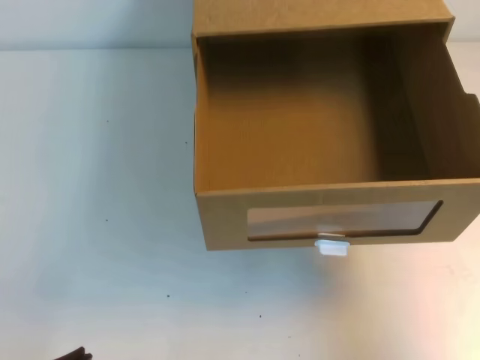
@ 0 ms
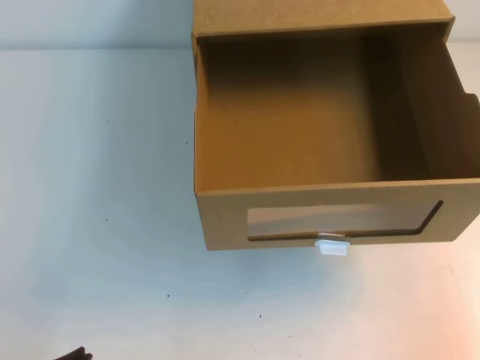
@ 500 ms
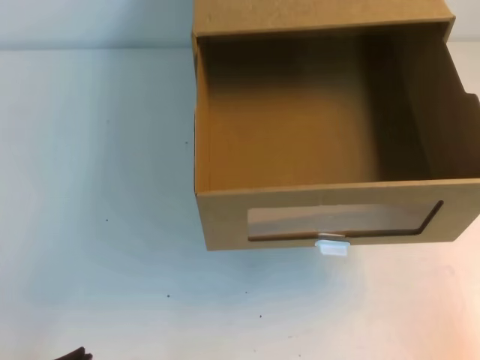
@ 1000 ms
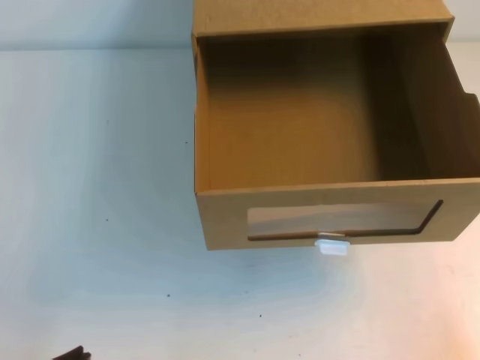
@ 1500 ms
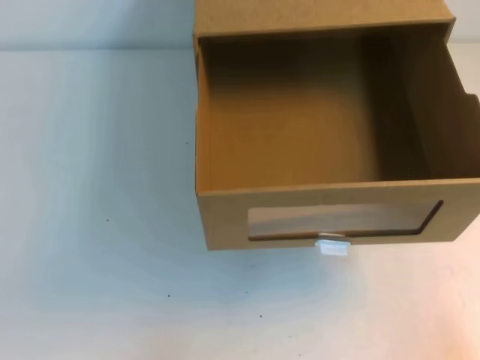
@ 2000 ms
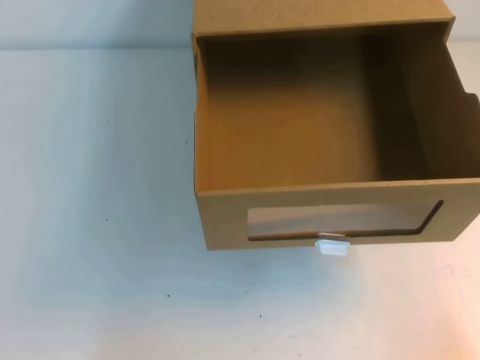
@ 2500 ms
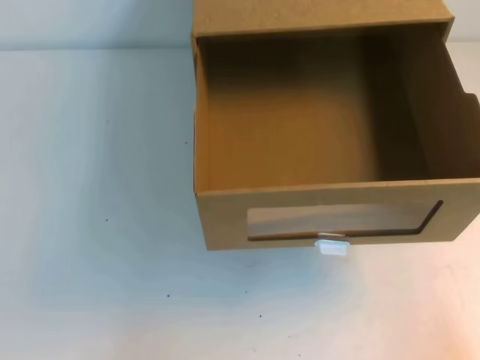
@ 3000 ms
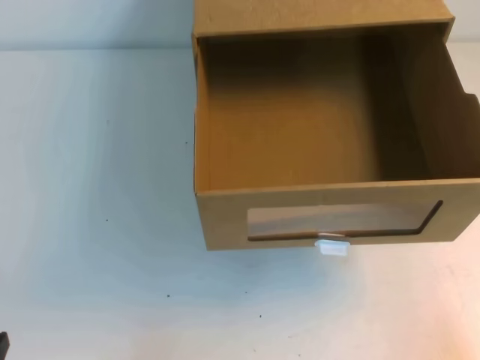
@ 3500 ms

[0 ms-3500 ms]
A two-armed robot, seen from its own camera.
Task of the whole recording: open the shoebox on the table.
Step, 0 ms to 3500 ms: Open the shoe box.
0 ms to 2000 ms: The right gripper is displaced downward and backward by some 20 cm.

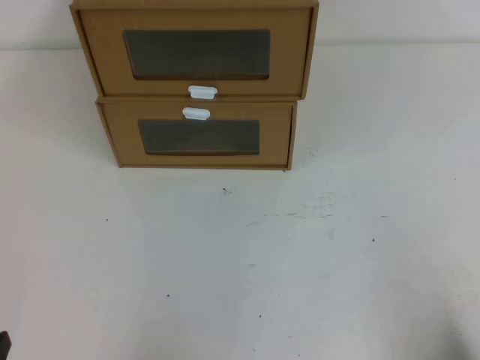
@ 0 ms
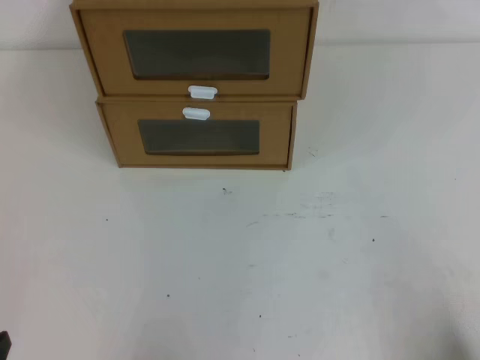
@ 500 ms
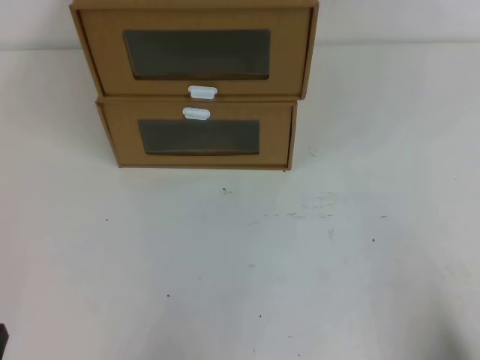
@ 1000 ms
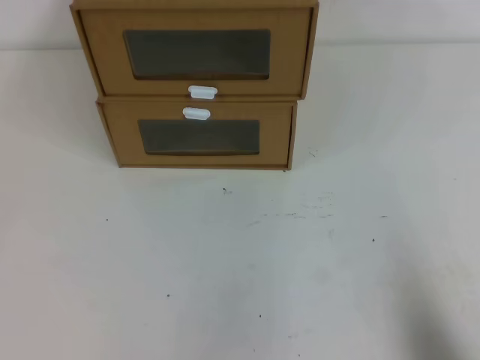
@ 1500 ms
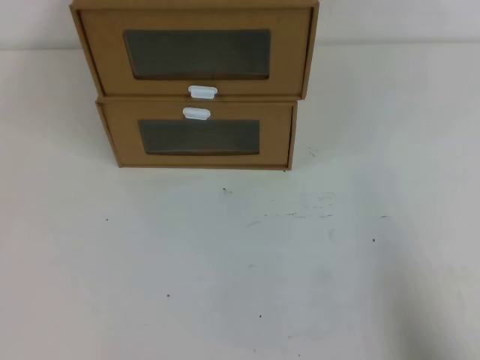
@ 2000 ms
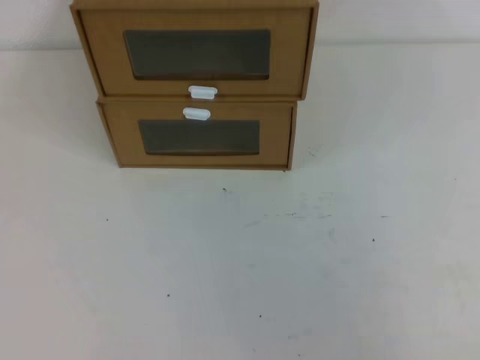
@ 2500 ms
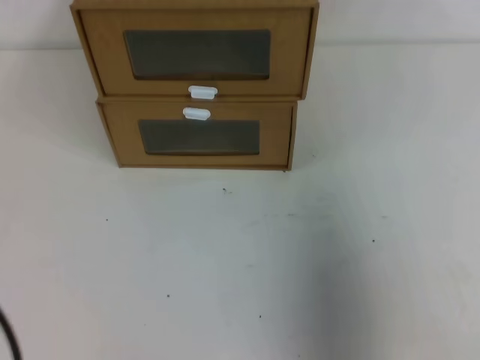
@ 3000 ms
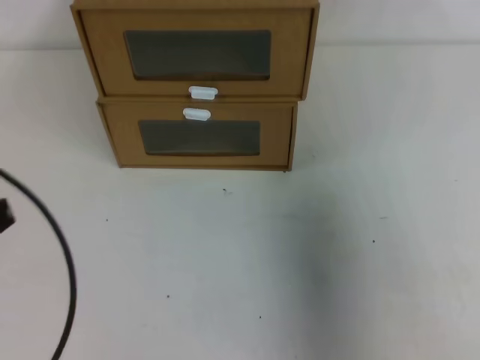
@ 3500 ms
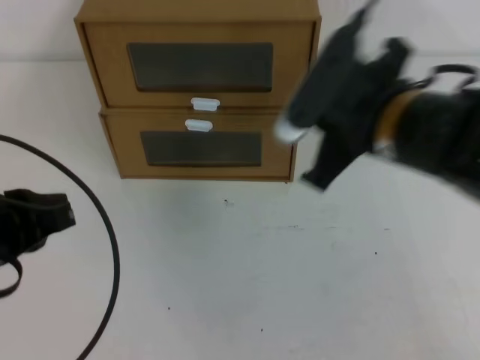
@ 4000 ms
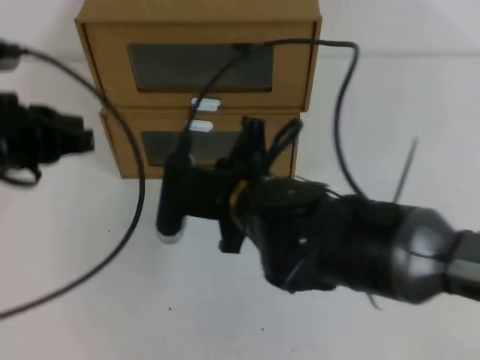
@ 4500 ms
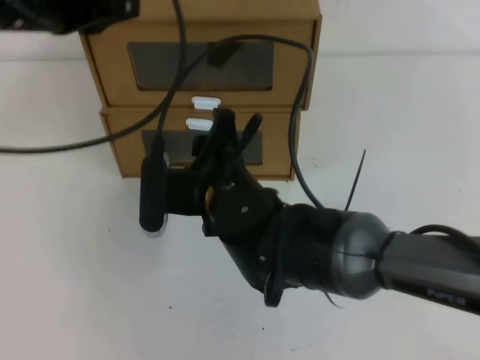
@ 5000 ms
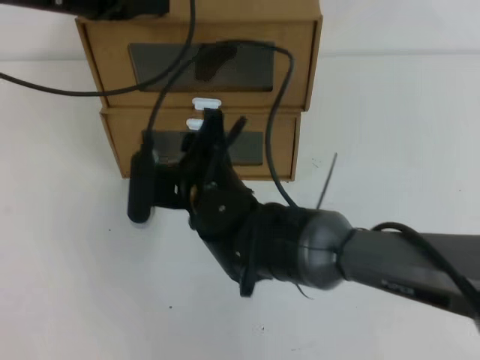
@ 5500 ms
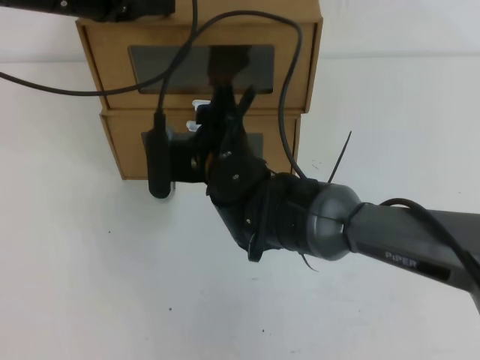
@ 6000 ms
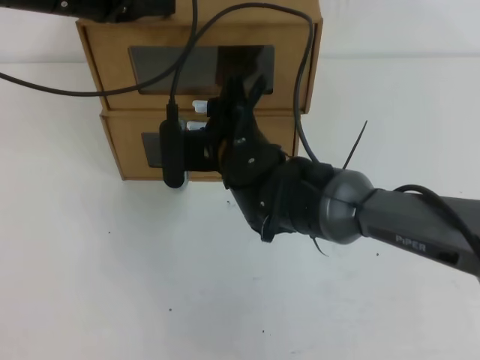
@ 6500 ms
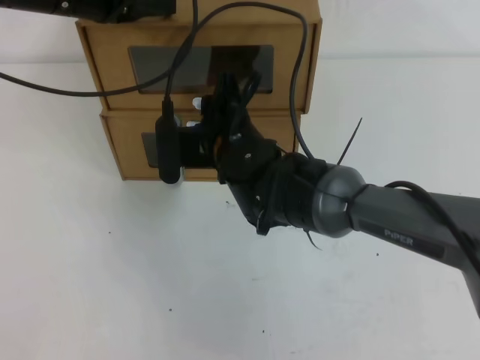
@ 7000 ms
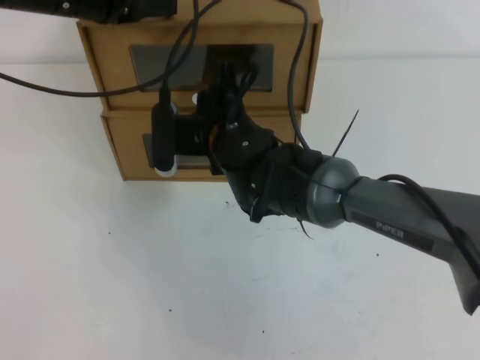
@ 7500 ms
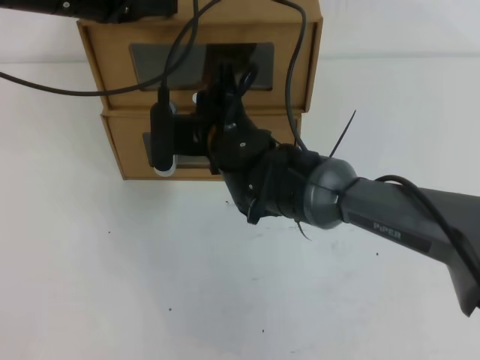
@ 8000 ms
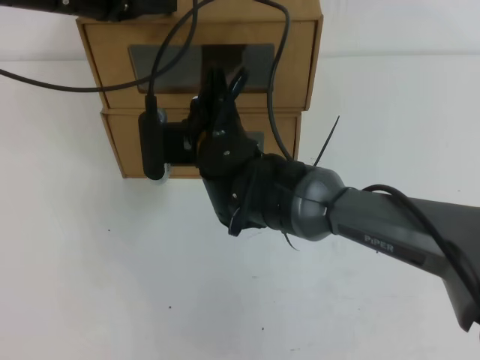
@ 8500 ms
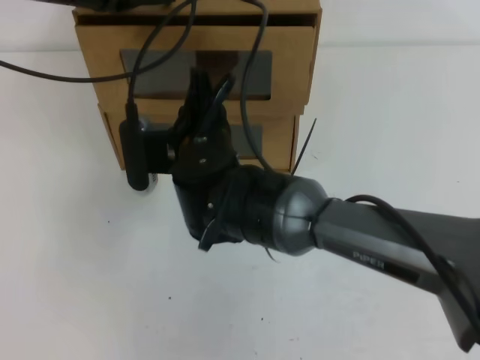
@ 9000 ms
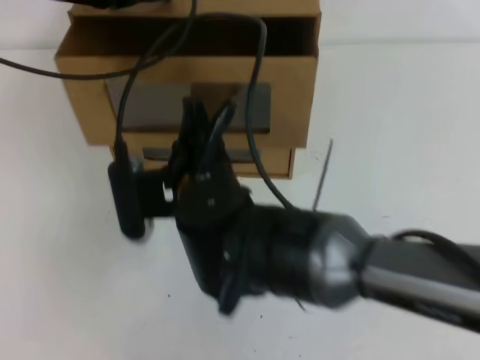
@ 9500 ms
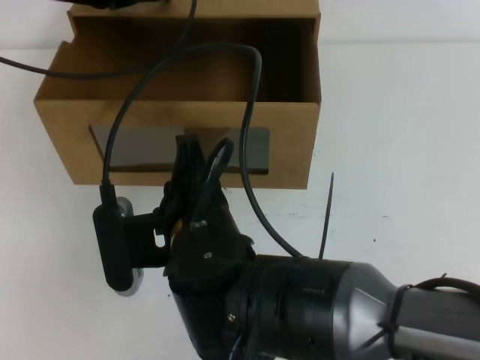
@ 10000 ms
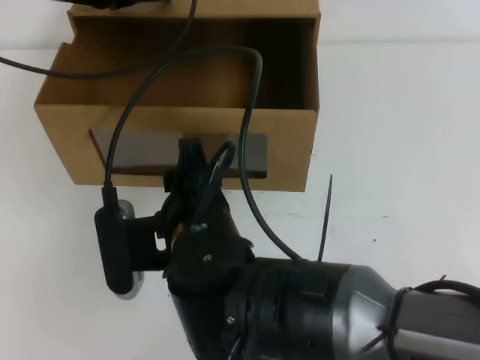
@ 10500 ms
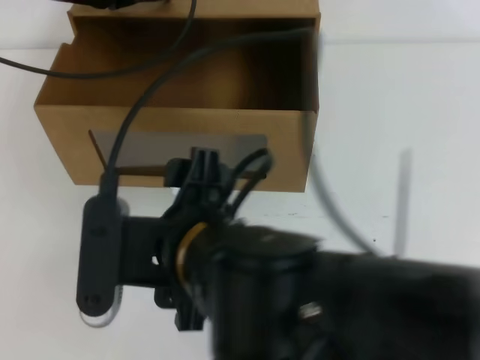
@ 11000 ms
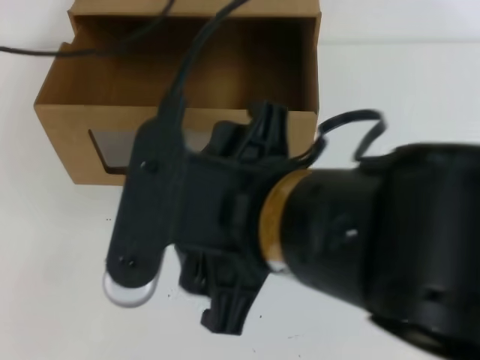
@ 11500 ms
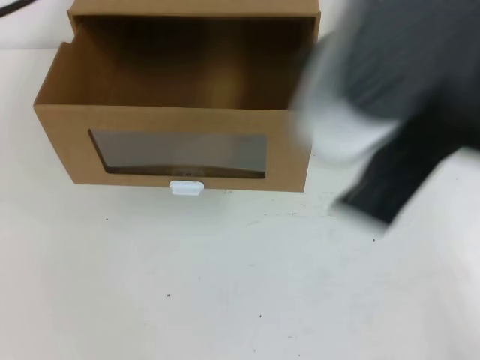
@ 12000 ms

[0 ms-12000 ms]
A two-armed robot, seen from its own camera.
Task of the whole recording: open the shoebox on the table.
2000 ms to 4000 ms: The left gripper travels forward and upward by approximately 15 cm, while the right gripper is displaced forward, to the left and upward by some 30 cm.
4000 ms to 6000 ms: The right gripper travels to the left and downward by about 25 cm, and opens its fingers. Meanwhile the left gripper shifts some 25 cm forward.
6000 ms to 8000 ms: The grippers make only small movements.
8000 ms to 10000 ms: The right gripper goes roughly 15 cm backward.
10000 ms to 12000 ms: The right gripper shifts some 25 cm upward, to the right and backward, and opens, then closes again; the left gripper heads upward and backward, covering some 20 cm.

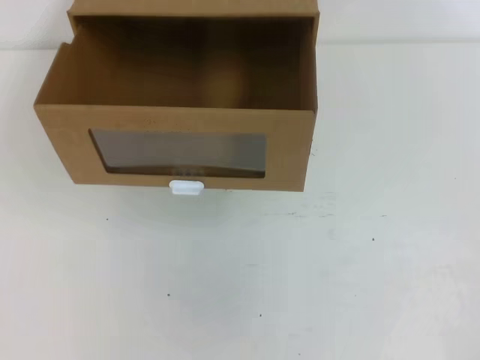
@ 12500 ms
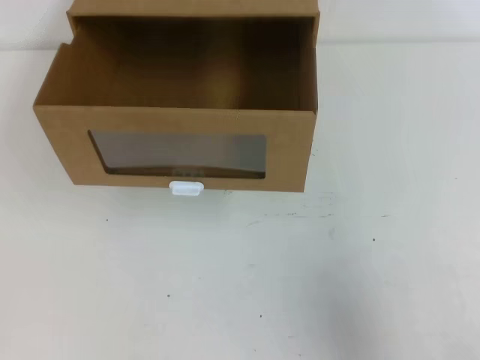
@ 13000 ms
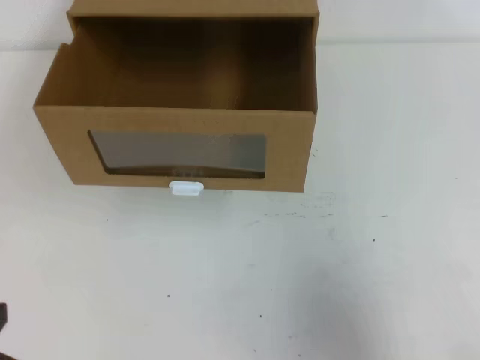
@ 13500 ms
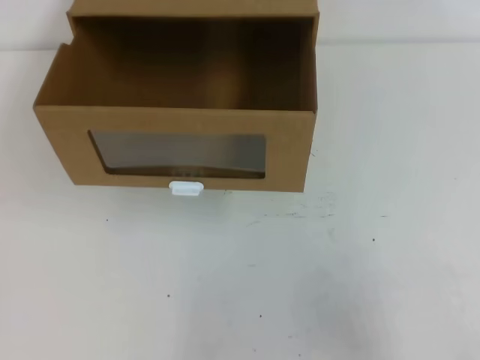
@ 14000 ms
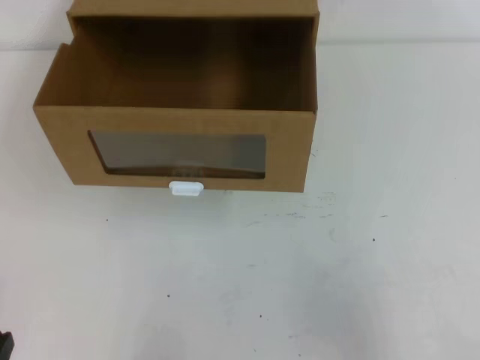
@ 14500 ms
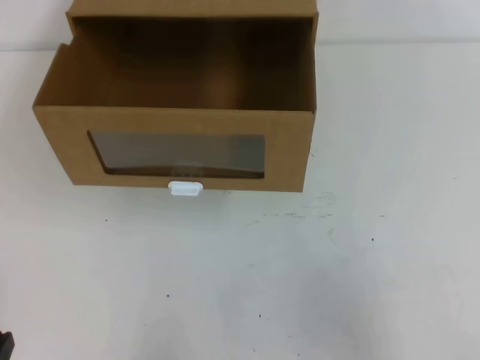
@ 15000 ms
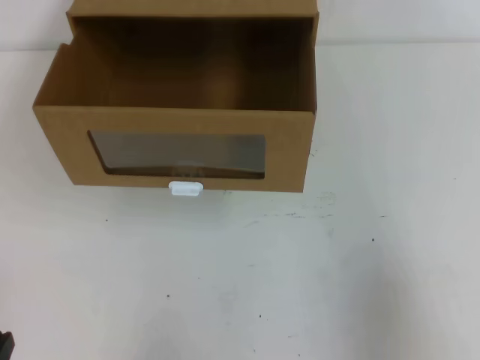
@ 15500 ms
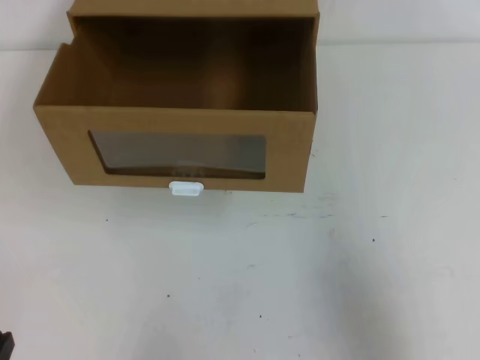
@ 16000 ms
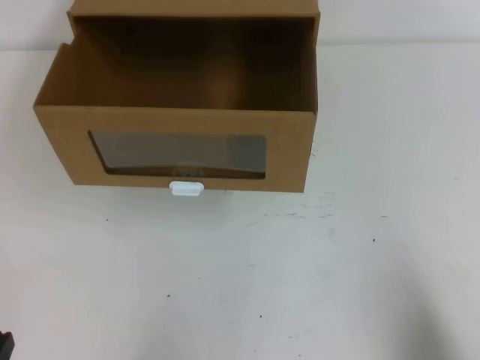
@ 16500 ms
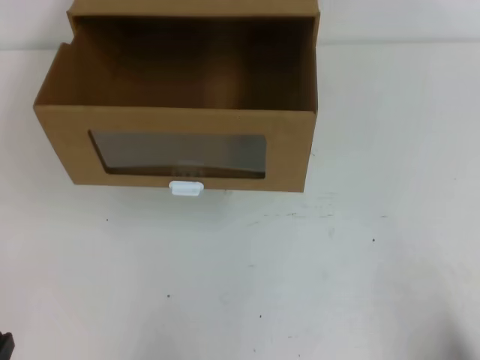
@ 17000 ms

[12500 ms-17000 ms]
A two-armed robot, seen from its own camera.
Task of the whole recording: open the shoebox on the table.
Step, 12500 ms to 17000 ms: Open the shoe box.
12500 ms to 14500 ms: The left gripper shifts approximately 40 cm downward; the right gripper goes approximately 20 cm downward.
14500 ms to 17000 ms: The right gripper is displaced downward by some 15 cm.
